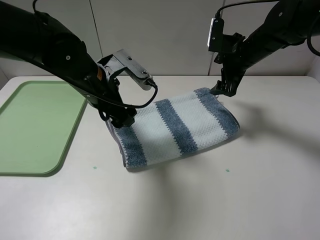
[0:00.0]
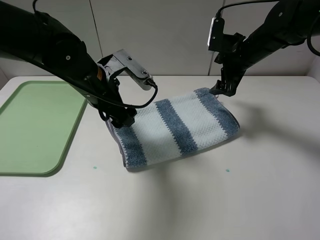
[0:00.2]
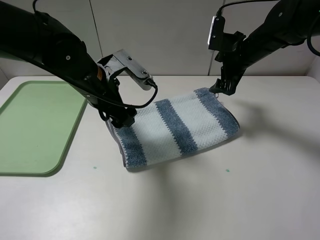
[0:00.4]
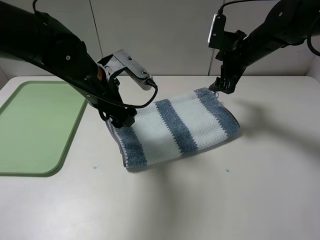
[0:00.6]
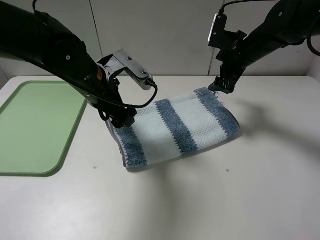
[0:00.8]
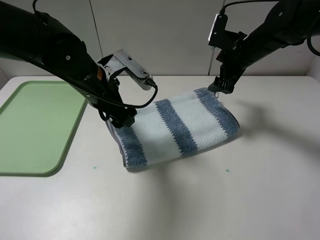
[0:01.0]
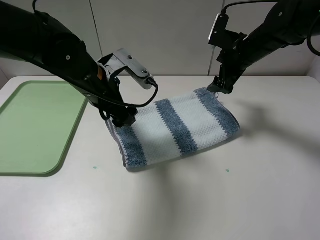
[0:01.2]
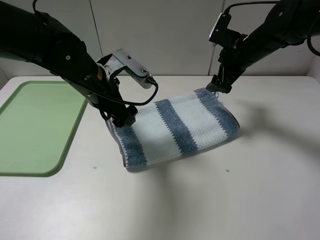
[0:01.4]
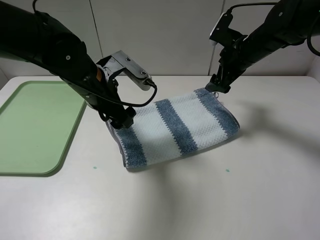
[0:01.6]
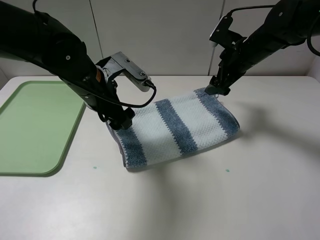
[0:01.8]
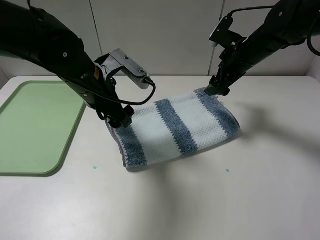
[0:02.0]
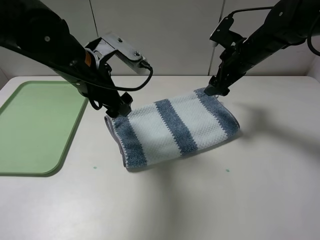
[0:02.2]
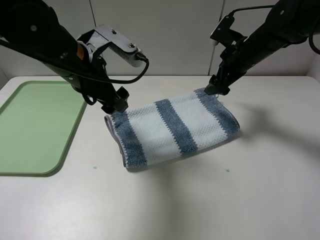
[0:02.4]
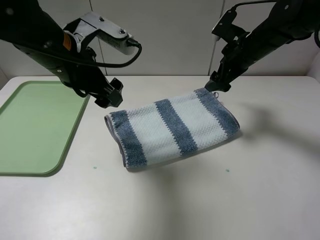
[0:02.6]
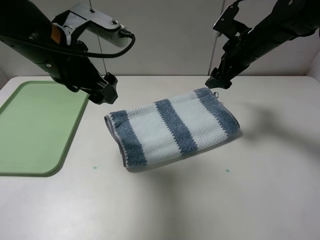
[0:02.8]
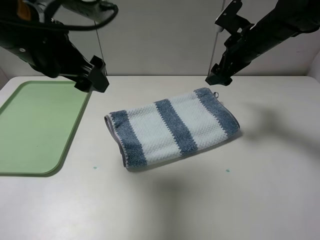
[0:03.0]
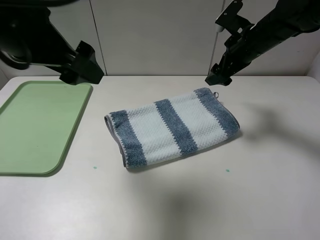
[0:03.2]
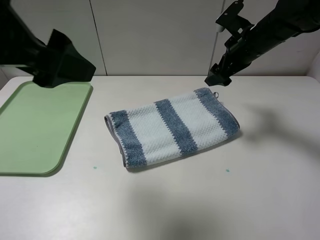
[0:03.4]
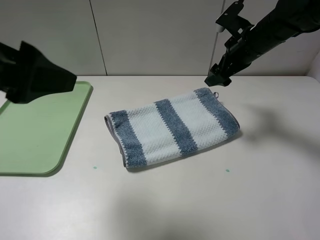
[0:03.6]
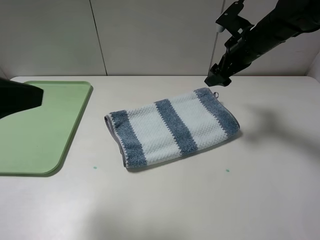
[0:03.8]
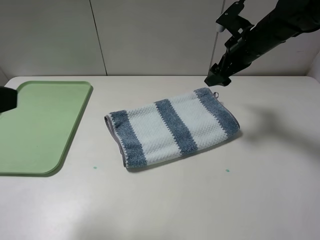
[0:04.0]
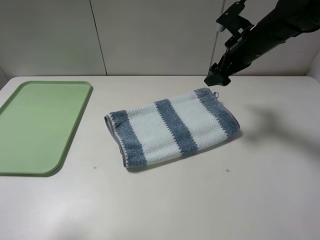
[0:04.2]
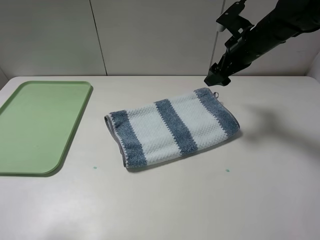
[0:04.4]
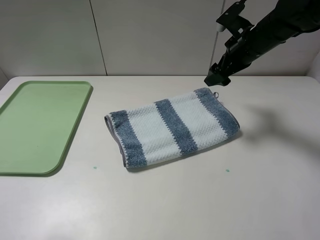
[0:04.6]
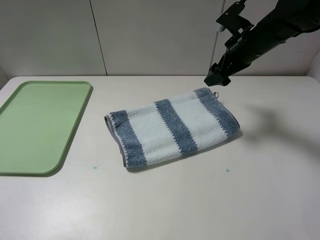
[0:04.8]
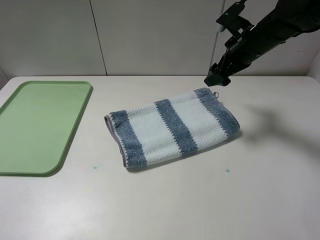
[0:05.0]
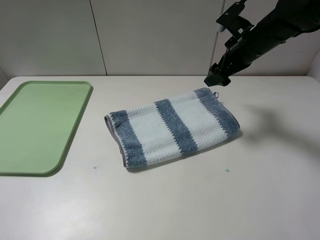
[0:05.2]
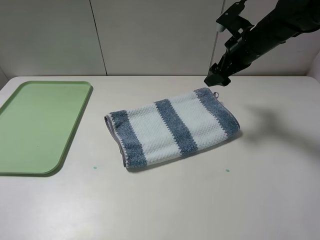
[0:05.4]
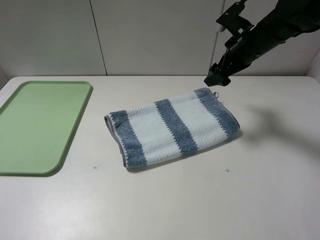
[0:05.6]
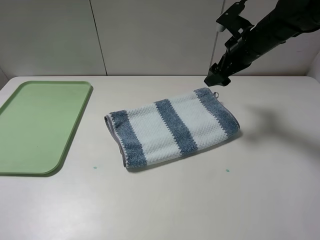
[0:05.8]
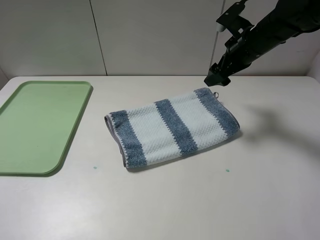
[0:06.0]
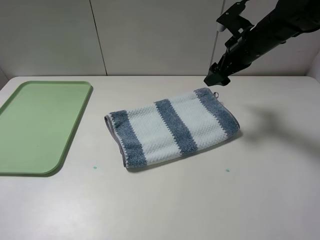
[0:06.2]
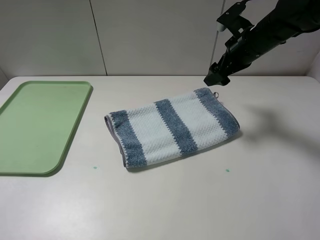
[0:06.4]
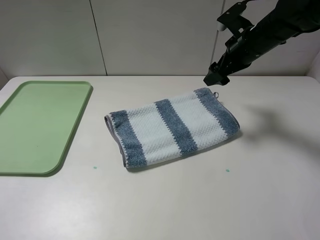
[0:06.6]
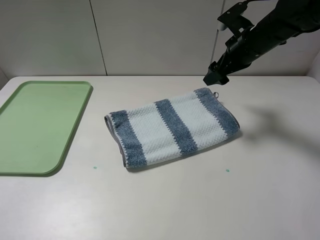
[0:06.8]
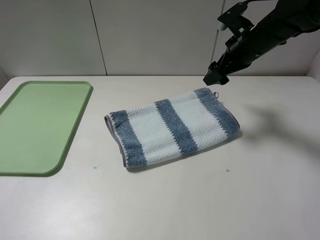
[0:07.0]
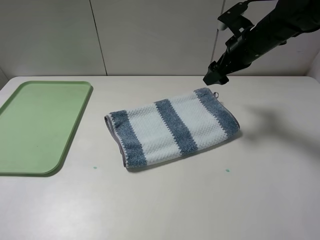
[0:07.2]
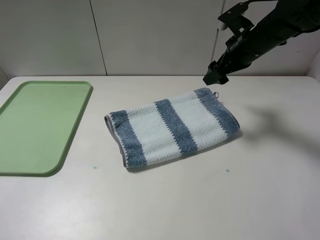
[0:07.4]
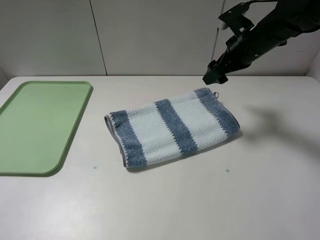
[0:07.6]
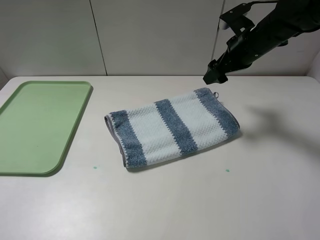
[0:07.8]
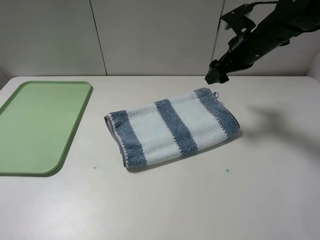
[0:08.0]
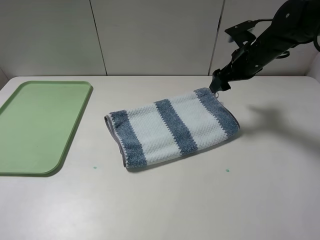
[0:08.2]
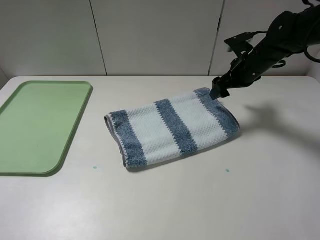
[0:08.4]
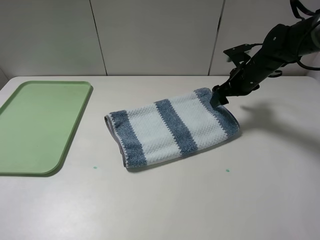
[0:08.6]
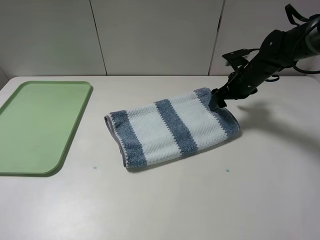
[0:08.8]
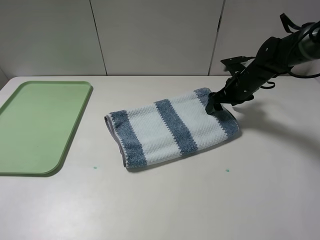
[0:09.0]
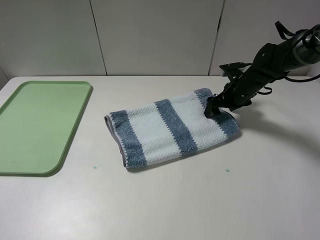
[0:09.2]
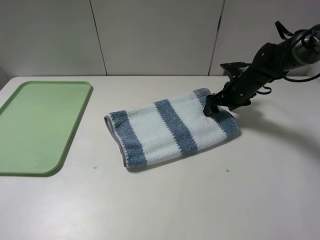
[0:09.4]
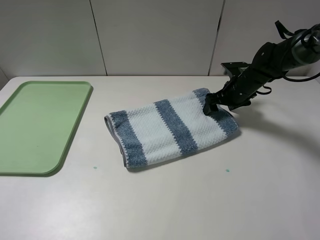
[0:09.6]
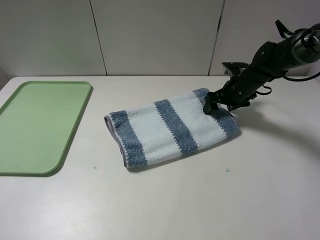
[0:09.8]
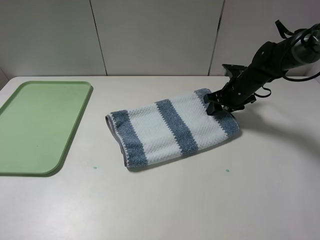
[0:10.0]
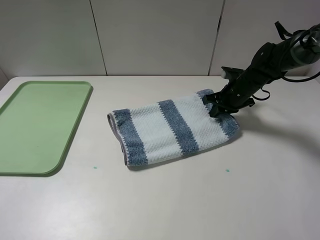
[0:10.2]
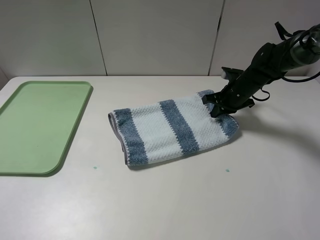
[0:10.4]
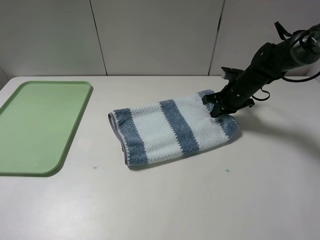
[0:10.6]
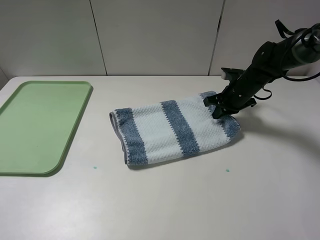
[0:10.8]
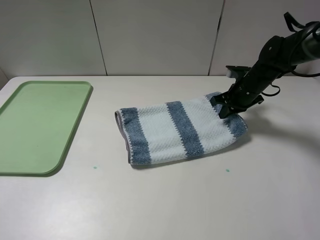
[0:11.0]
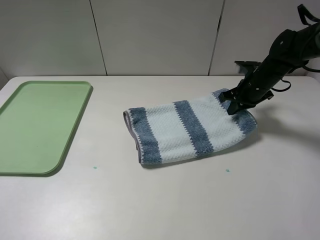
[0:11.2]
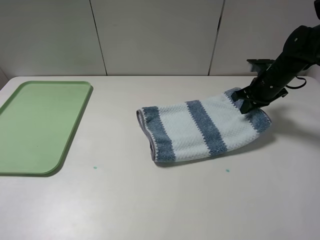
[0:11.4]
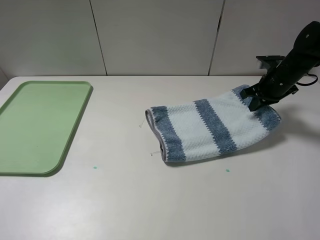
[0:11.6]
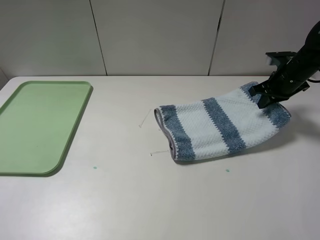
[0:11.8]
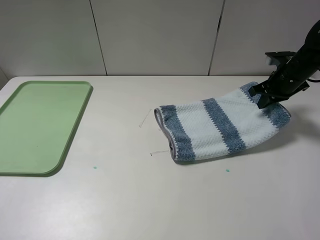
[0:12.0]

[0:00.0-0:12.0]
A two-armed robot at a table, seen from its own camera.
Step, 0:00.2 to 0:10.8: Grasp the blue white towel with the right gripper.
0:00.0 to 0:01.6: The grippers move only a little.
0:01.6 to 0:03.0: The left gripper shifts roughly 15 cm upward and backward.
0:03.0 to 0:04.4: The left gripper is displaced backward and to the left by roughly 25 cm.
0:06.0 to 0:07.6: The grippers stay close to where they were, moving slightly.
0:07.6 to 0:09.0: The right gripper travels downward by about 10 cm.
0:09.0 to 0:10.4: The right gripper closes its fingers.
0:10.4 to 0:12.0: The right gripper is displaced to the right and upward by about 10 cm.

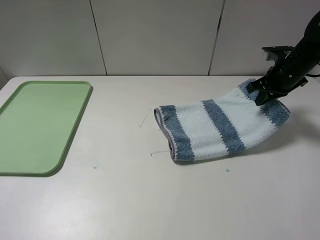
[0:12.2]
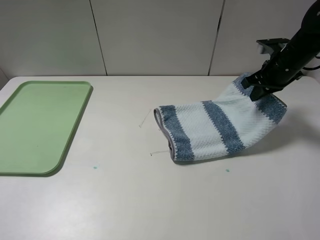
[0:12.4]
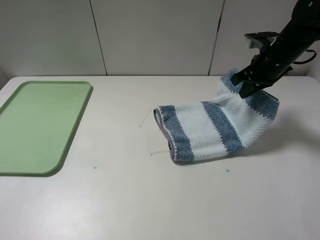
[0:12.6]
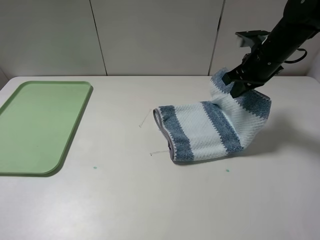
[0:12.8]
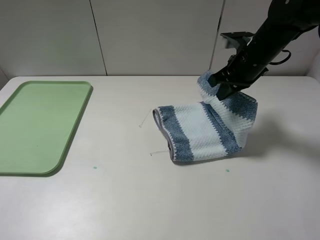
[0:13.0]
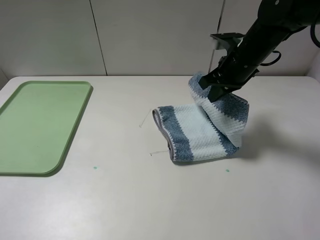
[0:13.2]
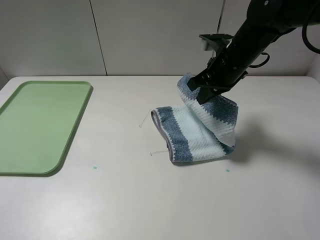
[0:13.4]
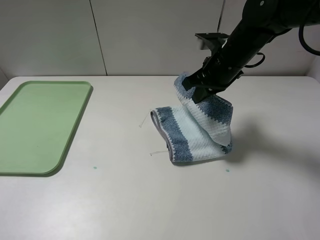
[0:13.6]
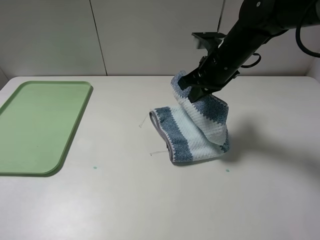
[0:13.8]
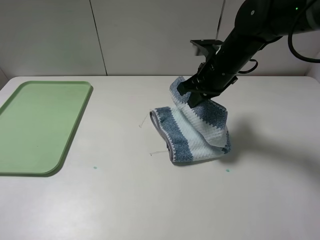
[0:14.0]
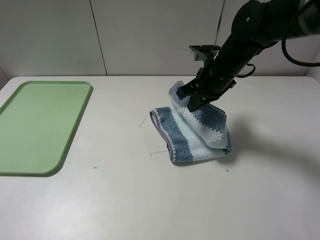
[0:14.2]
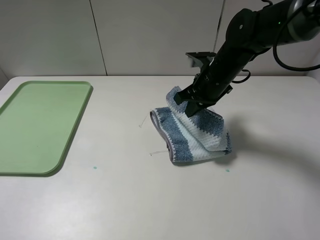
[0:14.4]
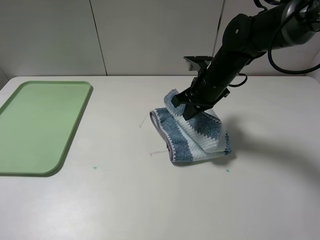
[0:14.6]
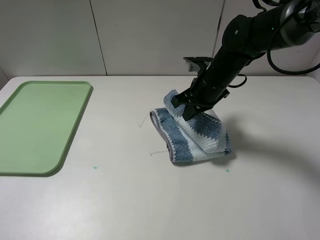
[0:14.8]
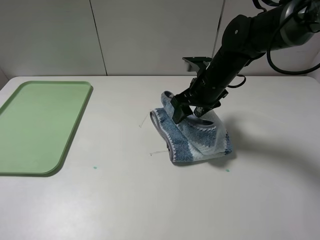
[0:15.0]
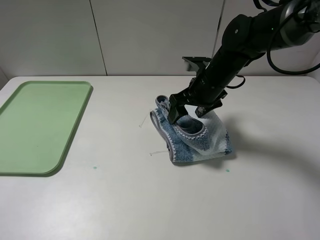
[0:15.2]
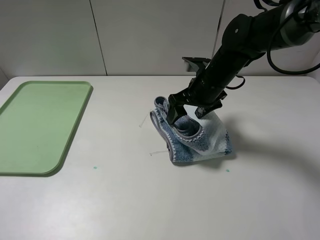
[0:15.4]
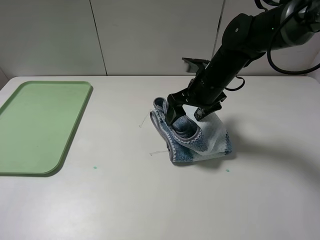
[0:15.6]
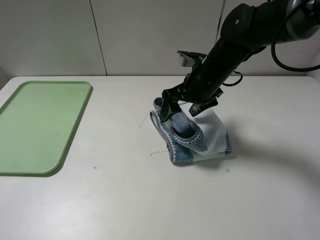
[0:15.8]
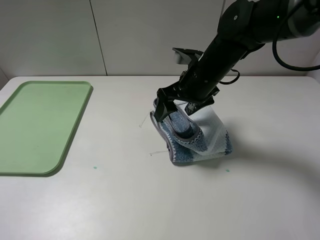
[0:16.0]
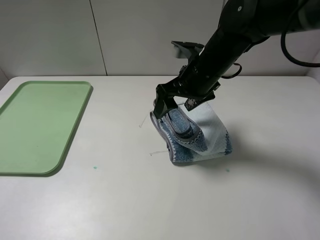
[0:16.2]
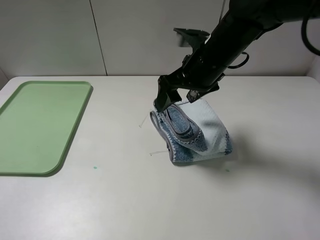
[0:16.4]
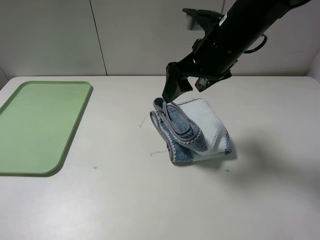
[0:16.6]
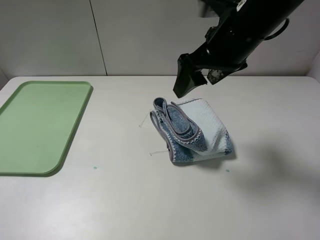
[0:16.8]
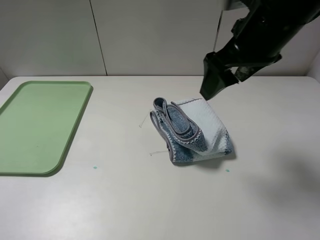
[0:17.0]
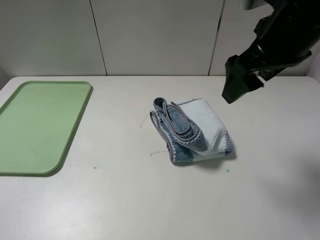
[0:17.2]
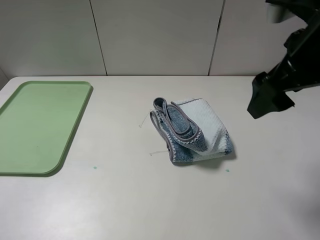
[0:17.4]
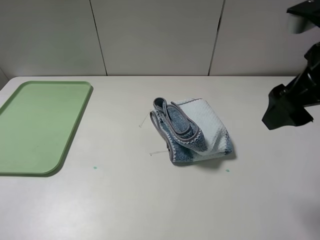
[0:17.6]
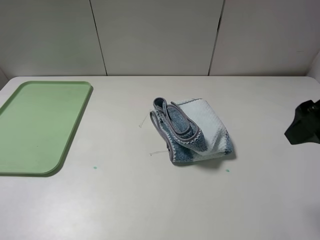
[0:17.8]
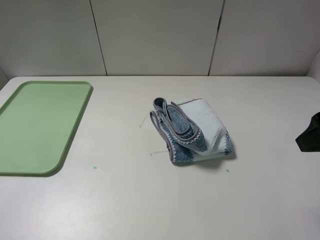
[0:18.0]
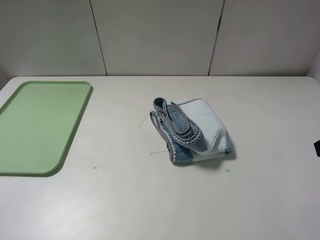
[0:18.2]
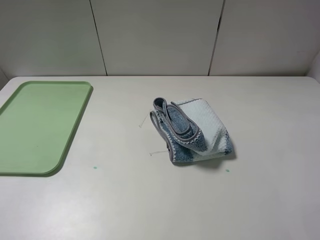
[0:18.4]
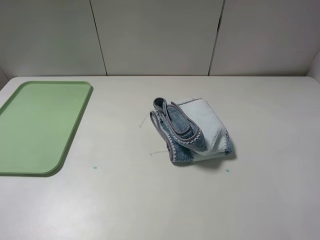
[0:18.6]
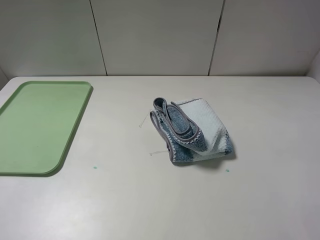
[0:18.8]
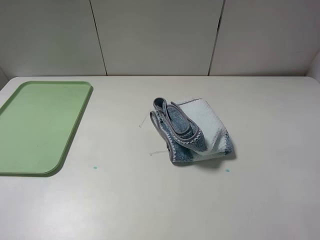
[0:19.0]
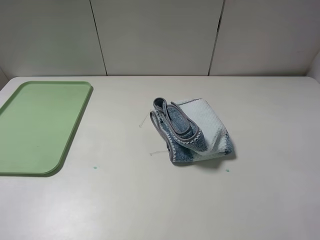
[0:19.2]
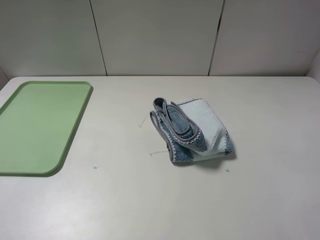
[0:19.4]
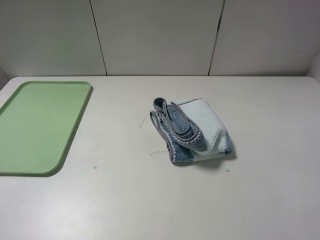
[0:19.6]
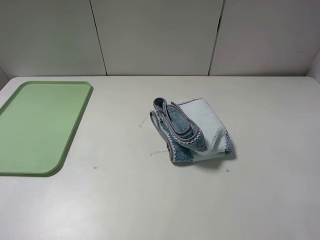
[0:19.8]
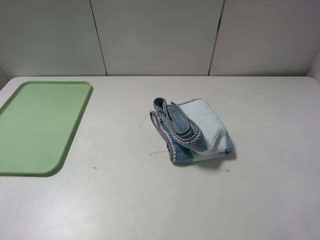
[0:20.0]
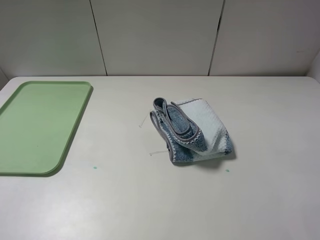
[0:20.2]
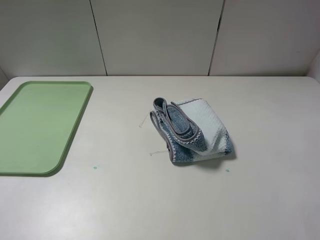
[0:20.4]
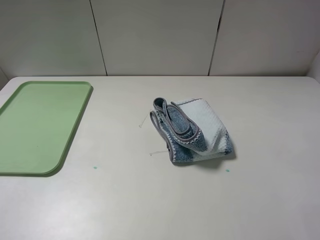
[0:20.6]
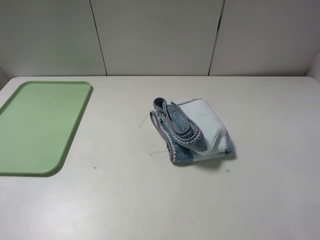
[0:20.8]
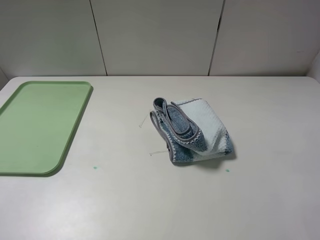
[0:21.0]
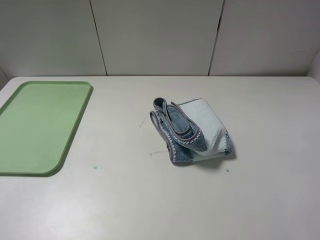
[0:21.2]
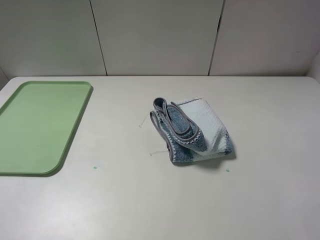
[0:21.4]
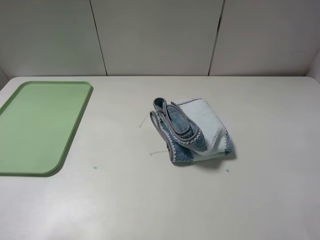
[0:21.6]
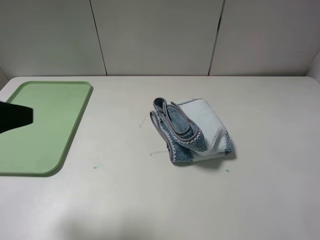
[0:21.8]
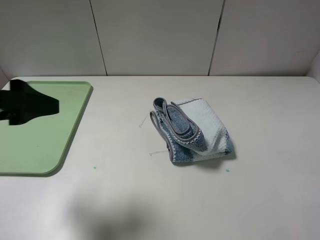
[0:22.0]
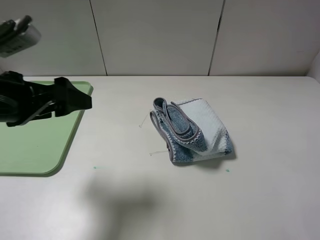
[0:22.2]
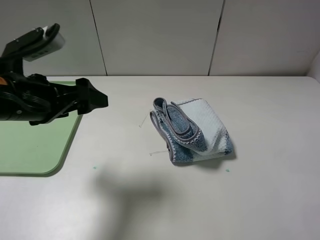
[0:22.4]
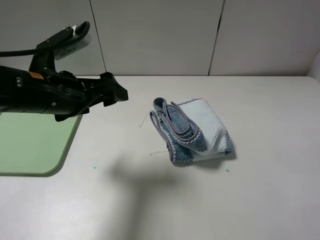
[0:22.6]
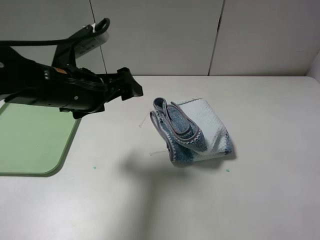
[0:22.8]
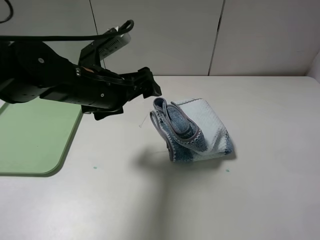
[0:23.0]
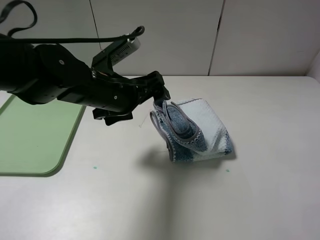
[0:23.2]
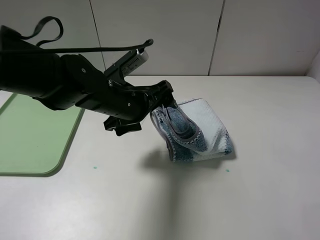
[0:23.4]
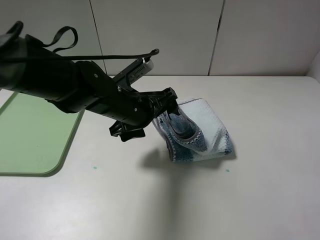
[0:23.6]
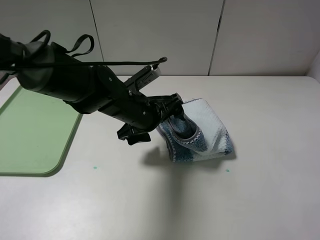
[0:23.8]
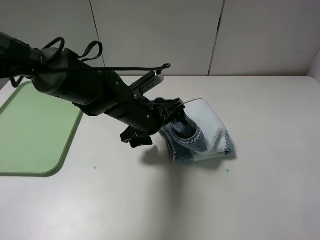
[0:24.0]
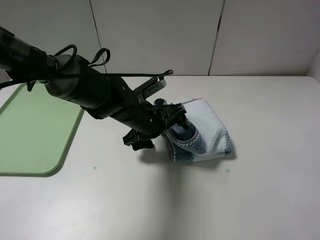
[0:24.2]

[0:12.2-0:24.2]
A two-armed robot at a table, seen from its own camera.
Step, 0:12.2 to 0:15.8: Fold the blue white towel from right to left with right gripper.
0:12.2 to 0:13.8: The right gripper shifts about 15 cm to the left.
0:13.8 to 0:15.2: The right gripper opens up.
0:15.2 to 0:16.6: The right gripper goes some 15 cm upward and backward.
0:16.6 to 0:18.2: The right gripper goes approximately 25 cm backward and to the right.
0:19.8 to 0:21.2: Both grippers stay put.
0:21.2 to 0:22.6: The left gripper goes roughly 25 cm forward and to the right.
0:22.6 to 0:24.2: The left gripper moves to the right, downward and forward, some 20 cm.
